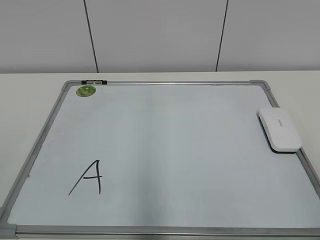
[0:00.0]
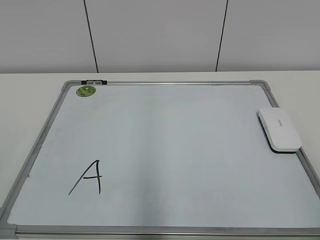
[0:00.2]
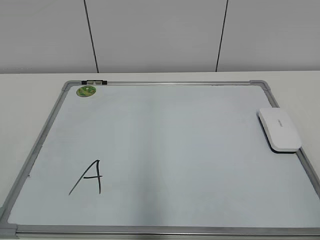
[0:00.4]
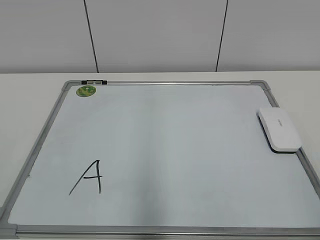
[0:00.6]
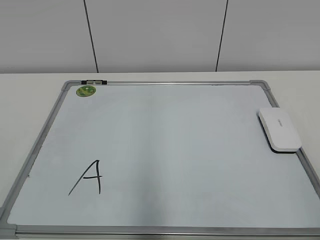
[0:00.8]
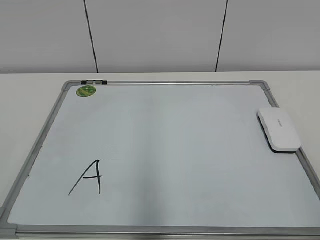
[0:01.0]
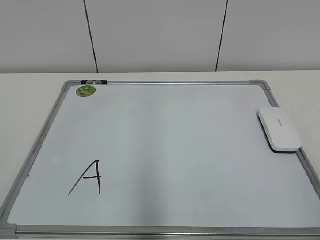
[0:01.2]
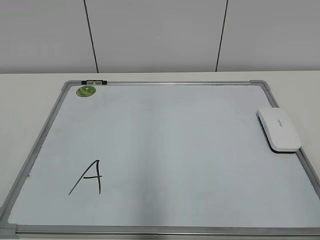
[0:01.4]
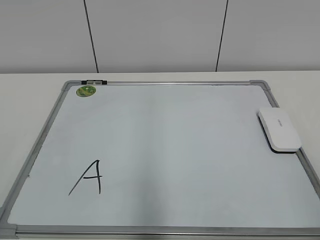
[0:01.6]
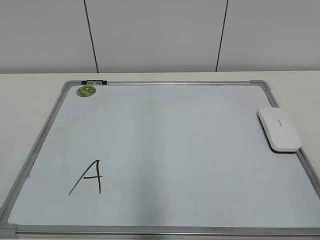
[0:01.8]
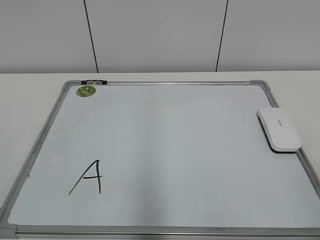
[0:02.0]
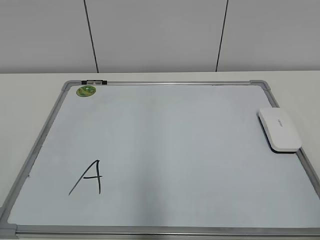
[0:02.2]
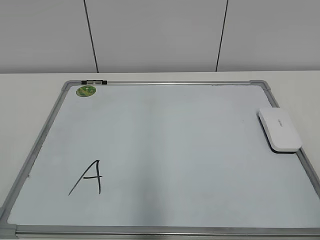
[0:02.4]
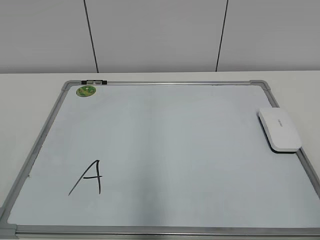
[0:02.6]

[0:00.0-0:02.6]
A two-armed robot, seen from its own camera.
Task of the whole recording: pick up the eraser on the blackboard and erase the letter "a".
1.2 to 2.6 s: Neither gripper changes place.

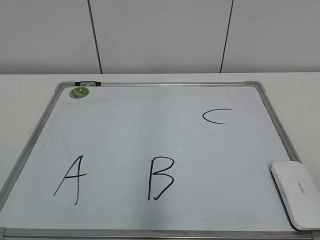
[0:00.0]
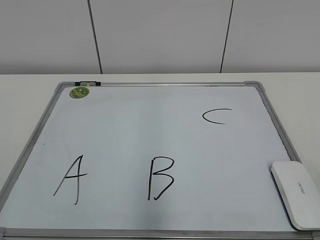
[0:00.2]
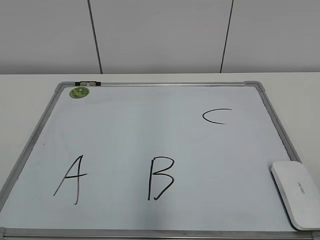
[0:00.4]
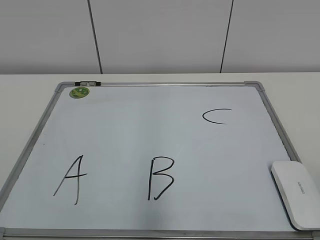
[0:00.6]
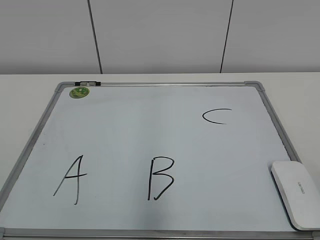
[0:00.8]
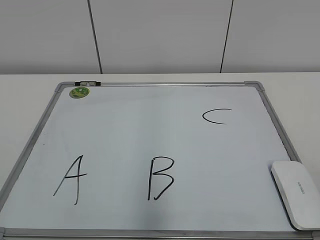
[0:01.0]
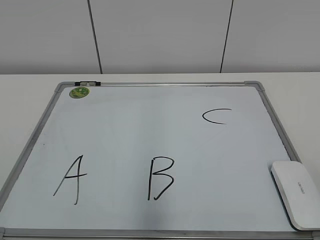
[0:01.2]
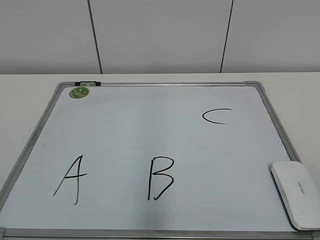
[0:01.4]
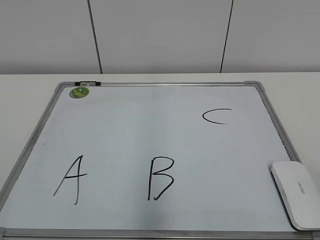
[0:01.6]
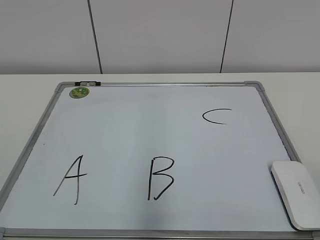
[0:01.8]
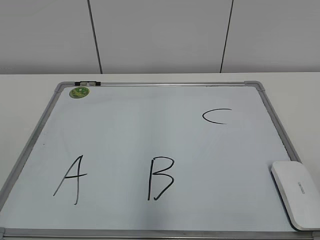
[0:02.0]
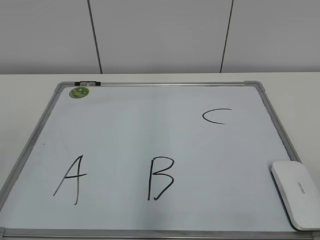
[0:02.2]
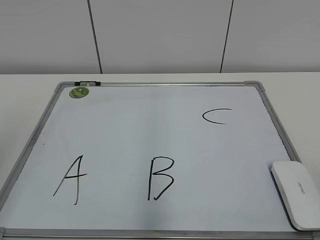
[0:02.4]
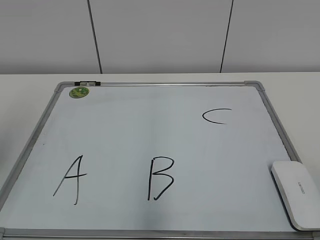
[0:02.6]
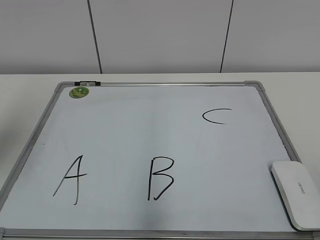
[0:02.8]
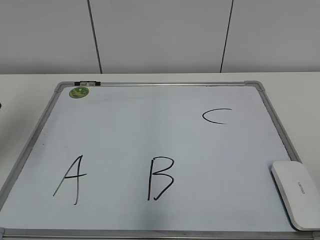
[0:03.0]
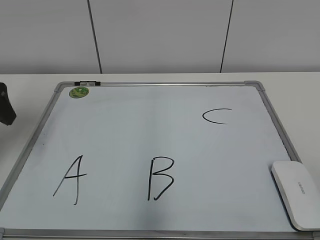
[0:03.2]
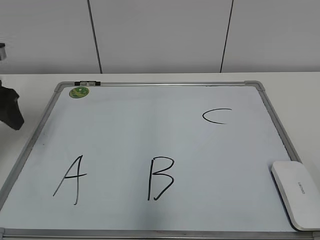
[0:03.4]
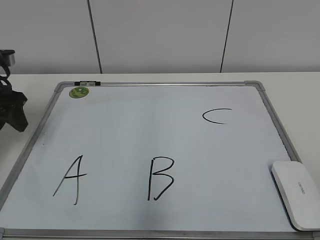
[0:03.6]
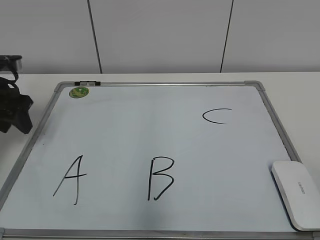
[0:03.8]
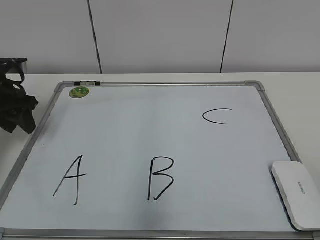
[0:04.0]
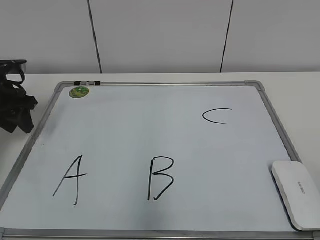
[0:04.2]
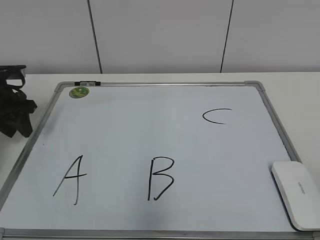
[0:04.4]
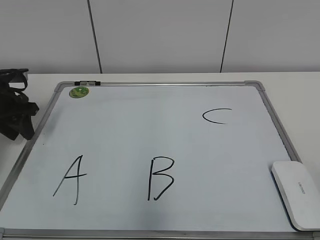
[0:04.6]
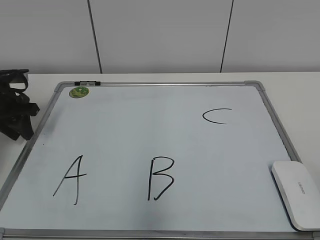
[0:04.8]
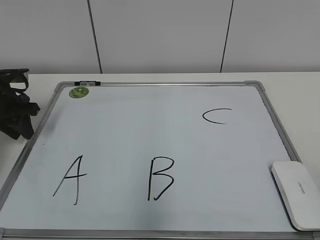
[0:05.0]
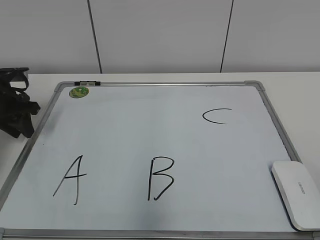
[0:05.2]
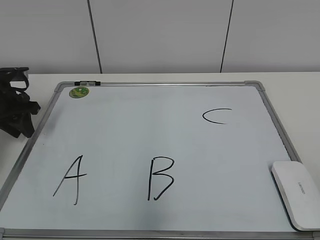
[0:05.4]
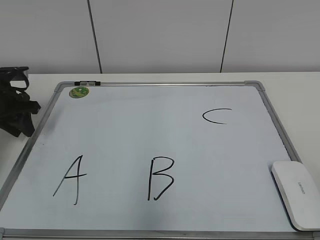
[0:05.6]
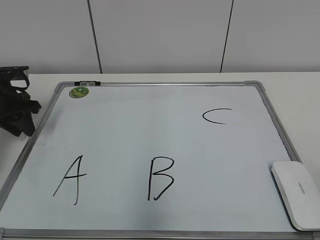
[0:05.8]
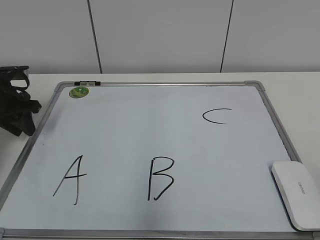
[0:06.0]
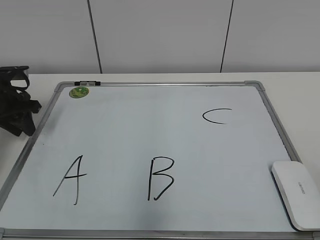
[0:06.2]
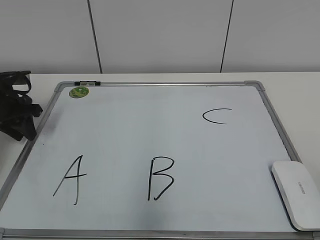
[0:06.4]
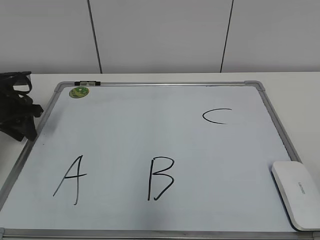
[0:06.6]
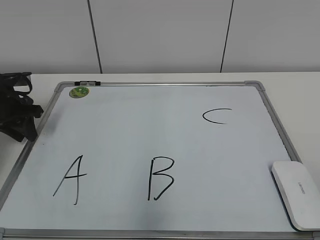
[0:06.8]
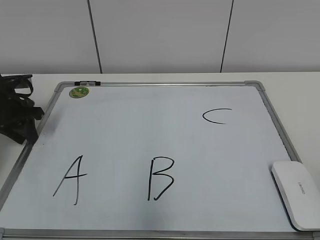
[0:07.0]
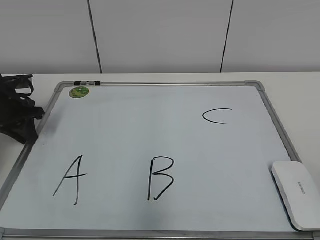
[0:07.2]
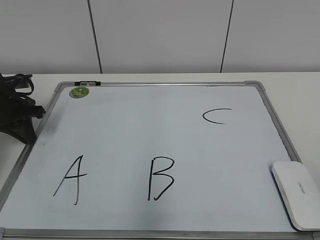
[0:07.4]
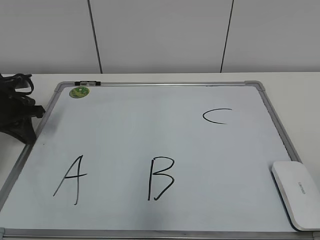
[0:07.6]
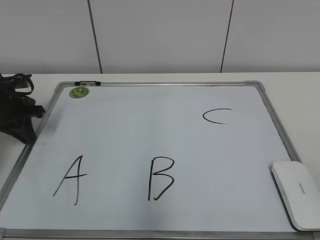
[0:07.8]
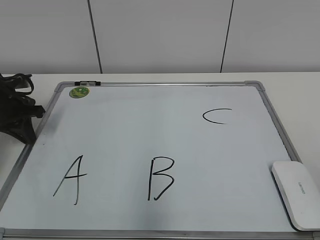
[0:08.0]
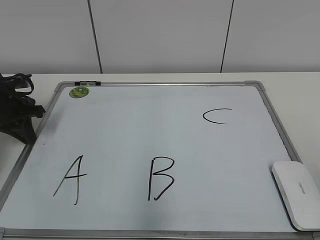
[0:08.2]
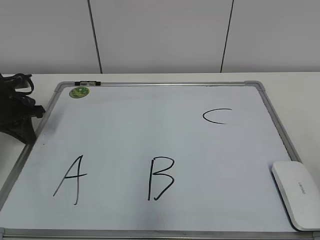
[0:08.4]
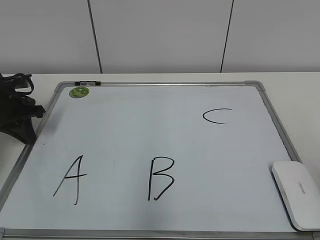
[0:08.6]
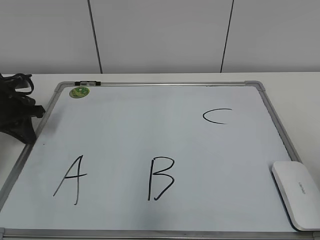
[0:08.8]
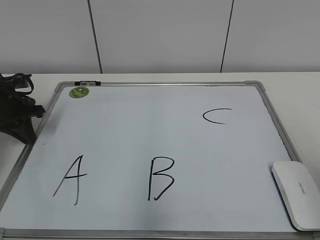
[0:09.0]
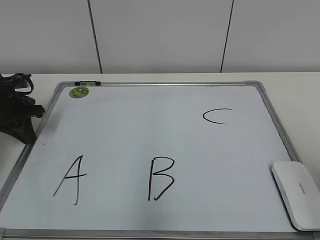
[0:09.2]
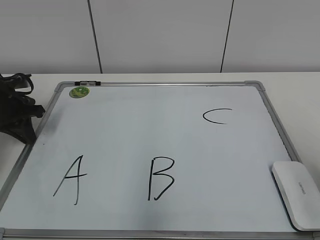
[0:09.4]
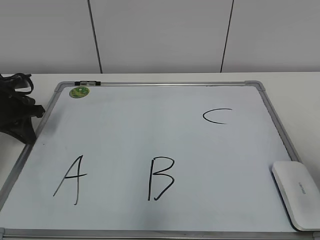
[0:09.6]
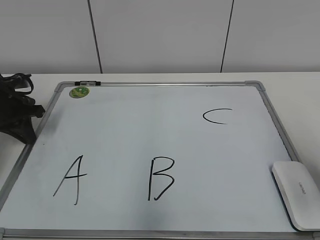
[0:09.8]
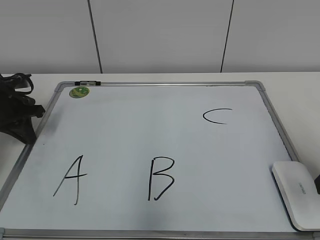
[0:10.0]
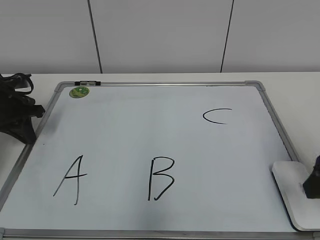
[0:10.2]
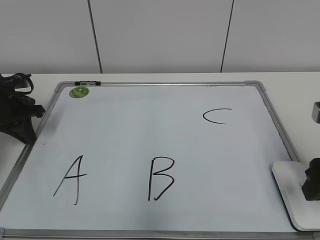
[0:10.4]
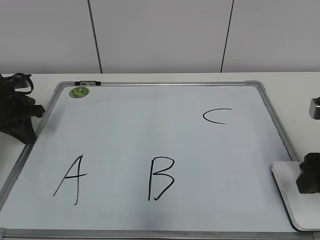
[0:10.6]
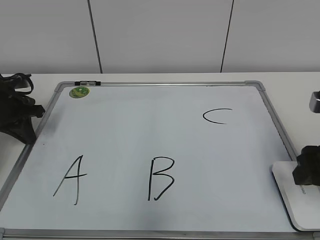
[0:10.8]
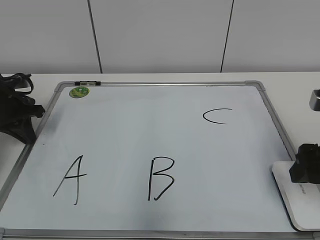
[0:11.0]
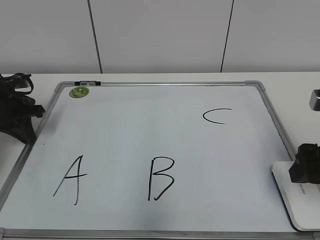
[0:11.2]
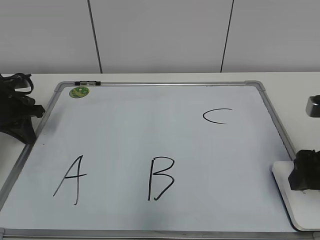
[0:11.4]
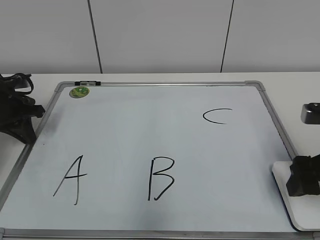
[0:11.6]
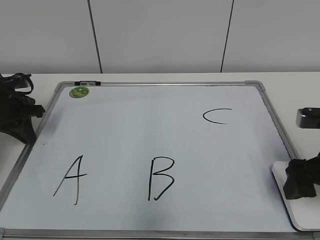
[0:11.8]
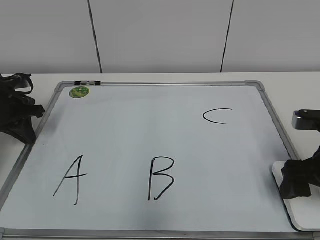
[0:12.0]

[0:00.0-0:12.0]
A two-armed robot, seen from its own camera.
Task of the whole recording: pick up the eraser on the blackboard and erase the letter "B".
Step, 0.0 to 7.4 s: Hold the drawing board steady with your left hand.
1.6 to 3.0 s: The left gripper shifts roughly 25 cm forward.
3.0 to 4.4 s: The left gripper moves downward and forward, some 20 cm, and closes.
6.0 to 7.6 s: The left gripper closes up.
9.0 to 10.4 s: The right gripper moves forward and downward, some 15 cm.
10.4 to 12.0 s: The right gripper shifts by roughly 5 cm, and opens its fingers.

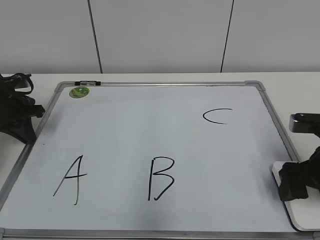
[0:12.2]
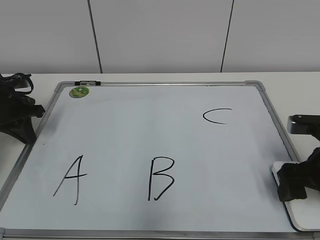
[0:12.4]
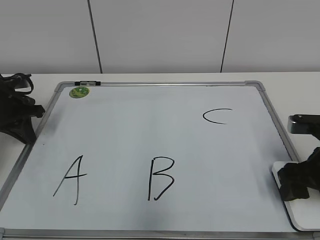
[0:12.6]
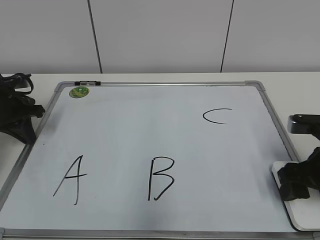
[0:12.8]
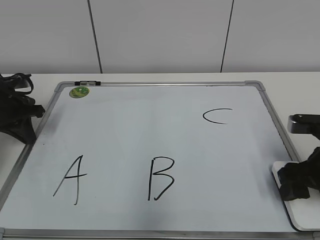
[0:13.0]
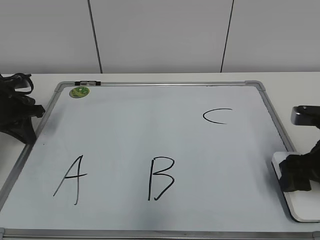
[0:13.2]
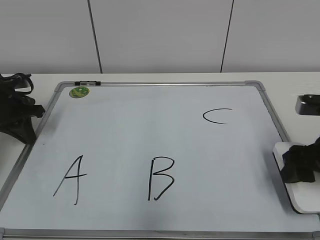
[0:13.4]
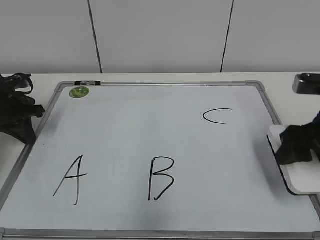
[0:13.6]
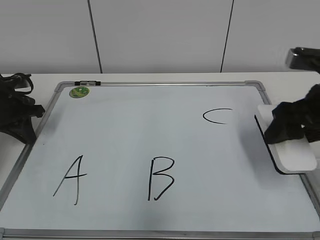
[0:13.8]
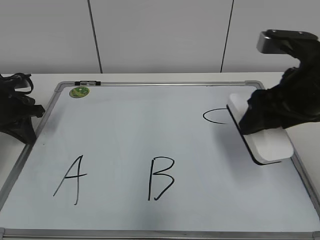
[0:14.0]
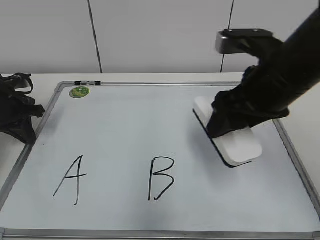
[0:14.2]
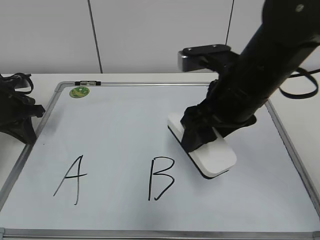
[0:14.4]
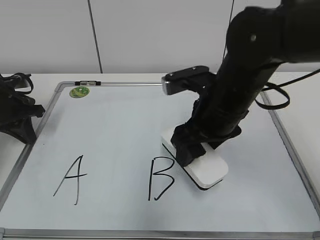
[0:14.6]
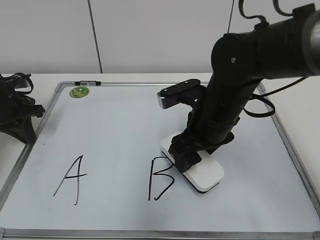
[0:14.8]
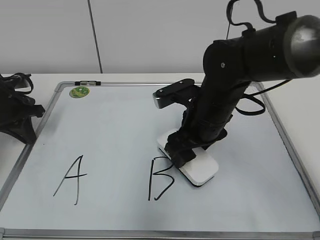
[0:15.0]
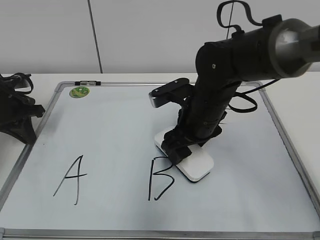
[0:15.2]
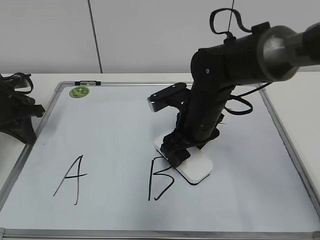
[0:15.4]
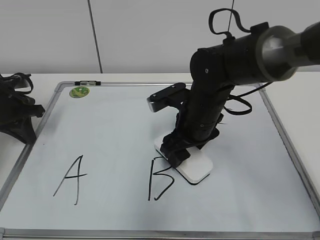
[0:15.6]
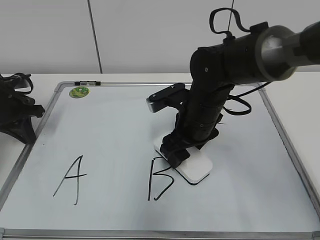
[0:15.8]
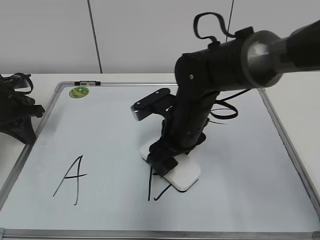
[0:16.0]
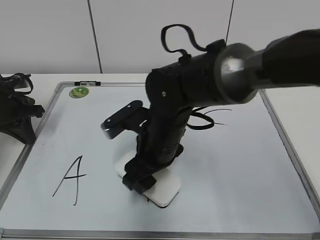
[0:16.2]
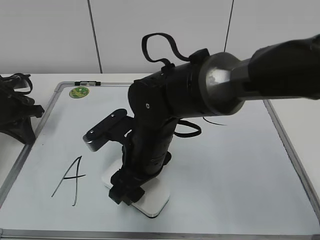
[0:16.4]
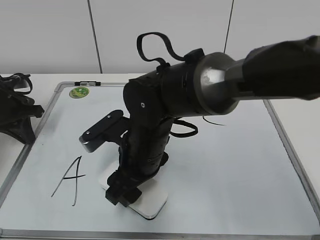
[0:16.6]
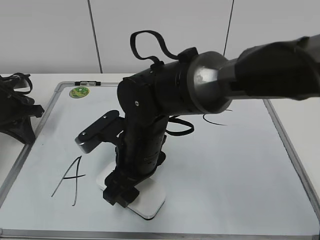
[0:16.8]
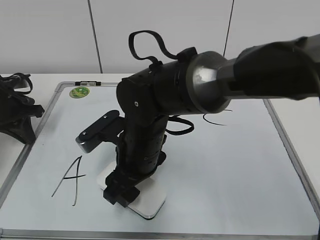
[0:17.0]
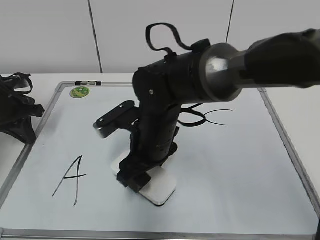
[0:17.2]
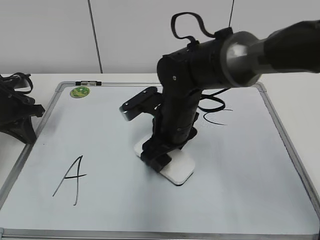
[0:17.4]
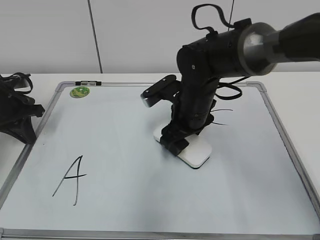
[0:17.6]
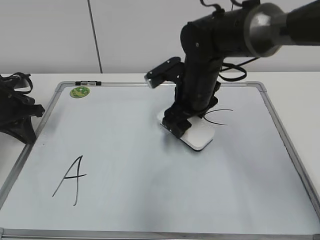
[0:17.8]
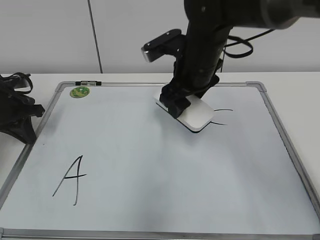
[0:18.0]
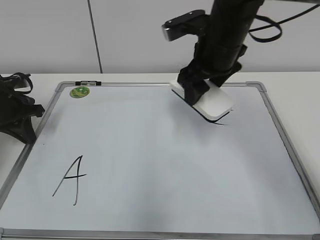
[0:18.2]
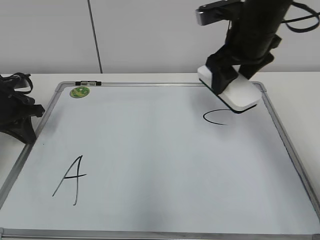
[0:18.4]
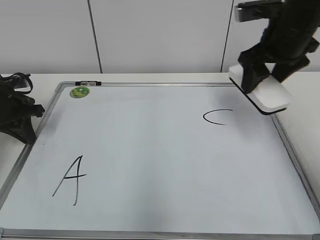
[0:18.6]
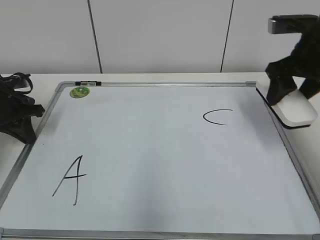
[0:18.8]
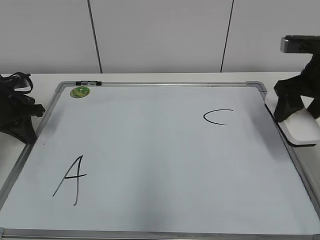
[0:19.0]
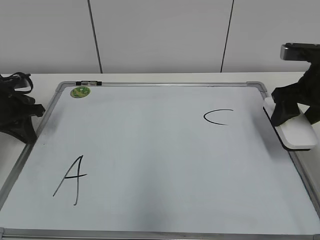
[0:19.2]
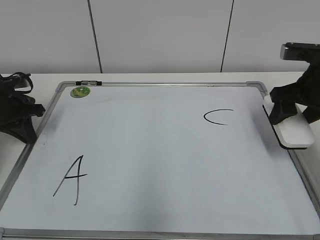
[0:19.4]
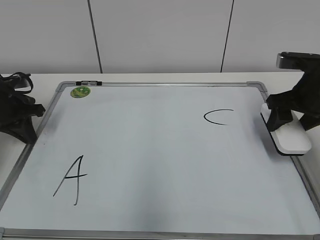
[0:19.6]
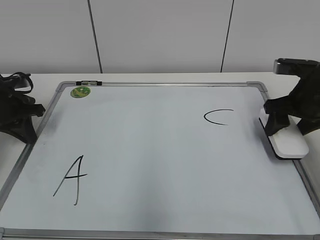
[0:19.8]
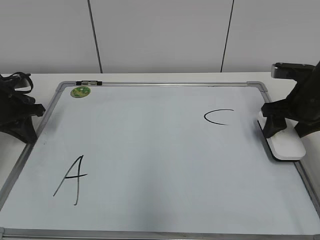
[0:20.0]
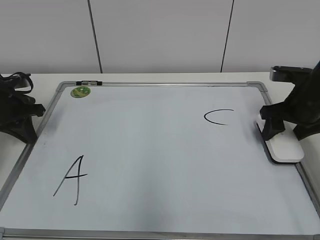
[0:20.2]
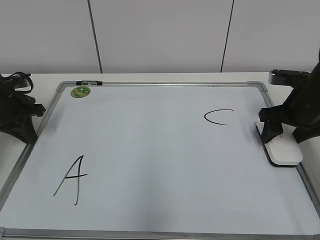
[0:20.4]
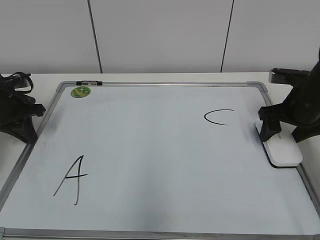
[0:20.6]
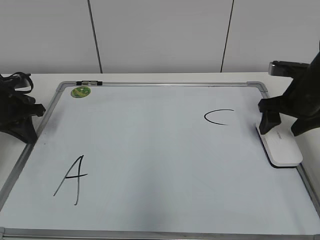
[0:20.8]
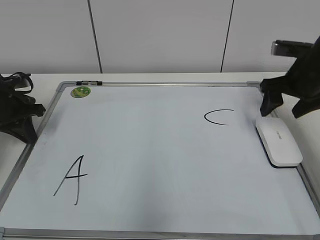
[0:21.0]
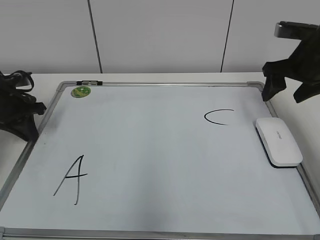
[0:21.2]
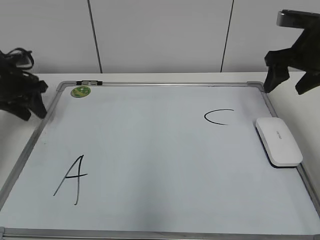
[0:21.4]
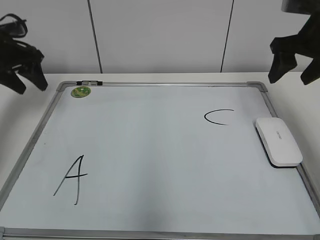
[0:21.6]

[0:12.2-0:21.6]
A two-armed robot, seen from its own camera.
Task of the whole recording: pick up the eraser on the blackboard and erase the letter "B".
Step, 12.8 to 17.4 s: Erase the letter B with your right hand.
Step, 17.6 to 20.6 s: Put down the eraser with your right hand.
12.2 to 13.8 s: The right gripper goes approximately 5 cm upward, and closes up.
13.8 to 15.4 s: The right gripper shifts approximately 20 cm to the left, forward and downward.
15.4 to 17.0 s: The right gripper moves to the left and backward, approximately 10 cm.
17.0 to 18.4 s: The right gripper travels to the right, upward and forward by roughly 25 cm.
18.4 to 20.0 s: The right gripper shifts some 15 cm to the right and downward.
20.0 to 21.6 s: Both grippers travel together upward, approximately 10 cm. The left gripper opens. Meanwhile the right gripper opens.
